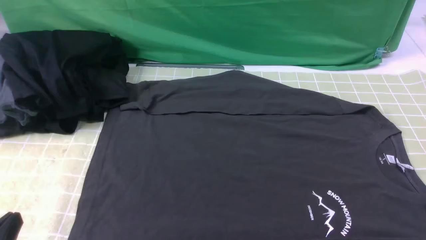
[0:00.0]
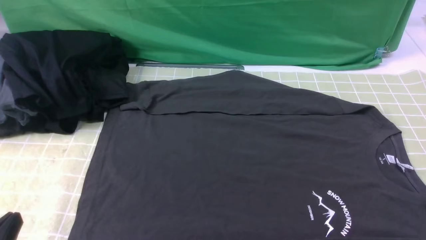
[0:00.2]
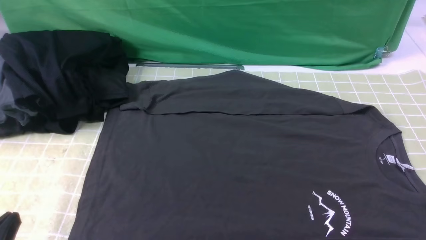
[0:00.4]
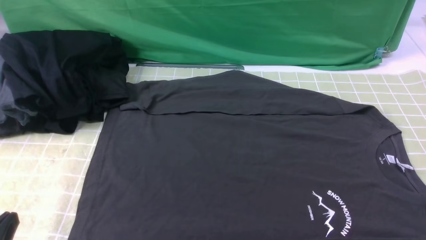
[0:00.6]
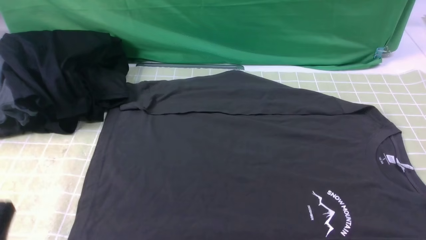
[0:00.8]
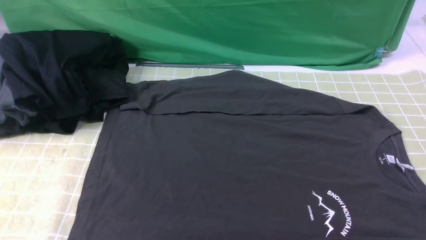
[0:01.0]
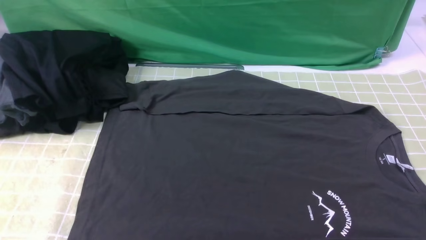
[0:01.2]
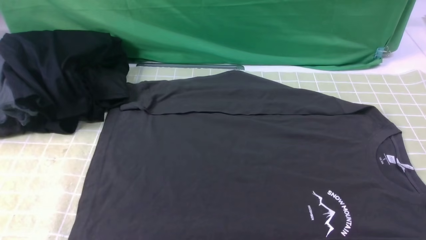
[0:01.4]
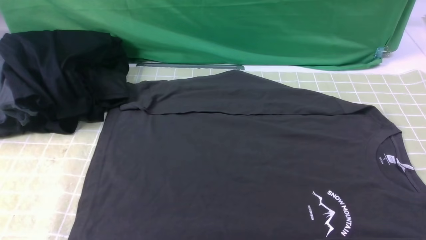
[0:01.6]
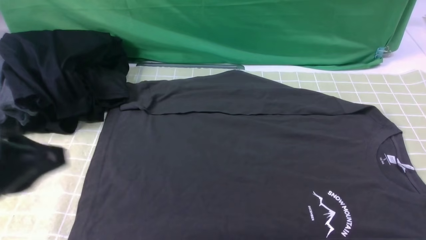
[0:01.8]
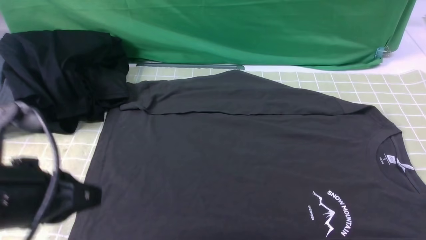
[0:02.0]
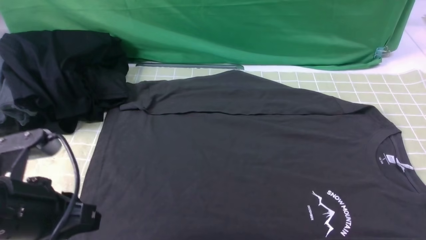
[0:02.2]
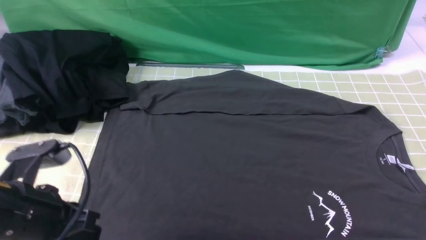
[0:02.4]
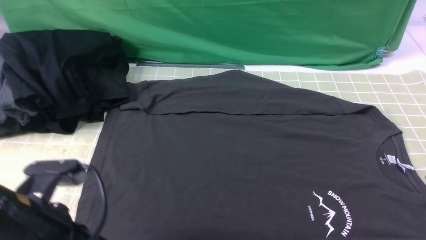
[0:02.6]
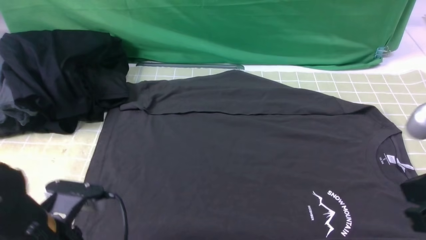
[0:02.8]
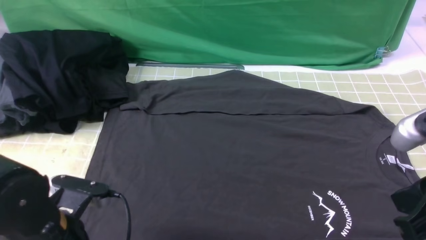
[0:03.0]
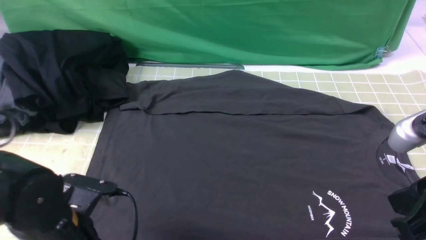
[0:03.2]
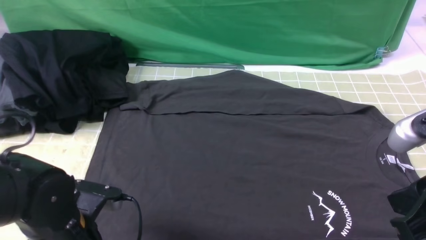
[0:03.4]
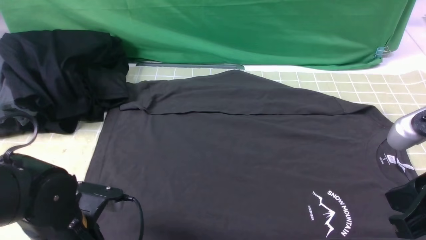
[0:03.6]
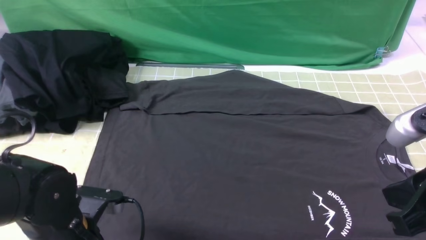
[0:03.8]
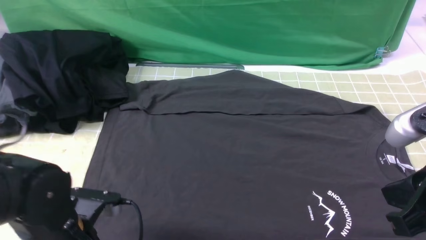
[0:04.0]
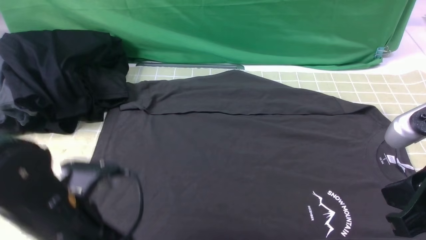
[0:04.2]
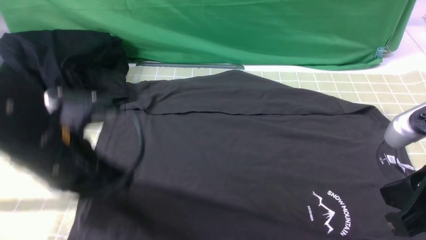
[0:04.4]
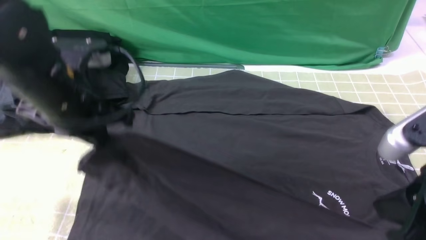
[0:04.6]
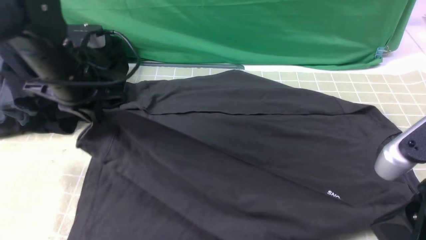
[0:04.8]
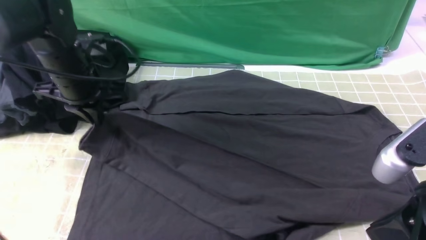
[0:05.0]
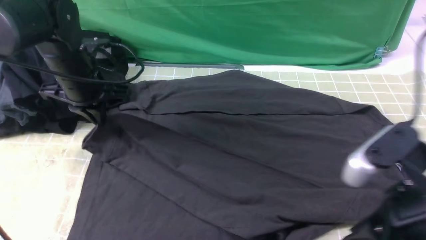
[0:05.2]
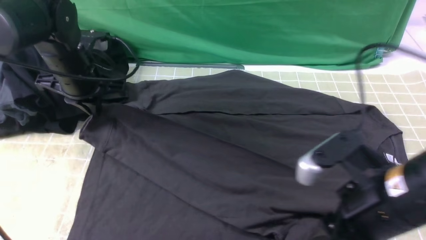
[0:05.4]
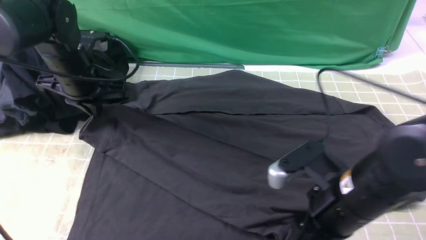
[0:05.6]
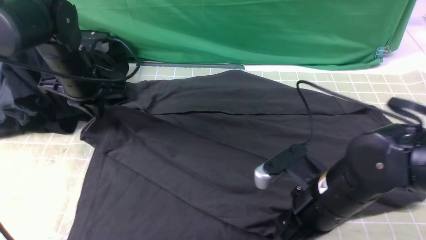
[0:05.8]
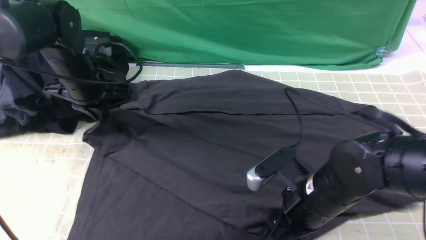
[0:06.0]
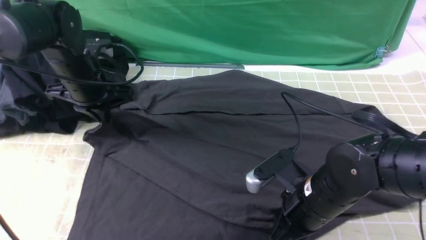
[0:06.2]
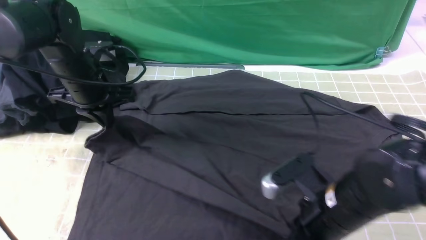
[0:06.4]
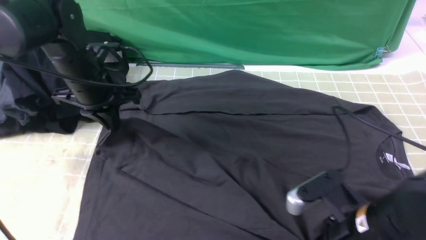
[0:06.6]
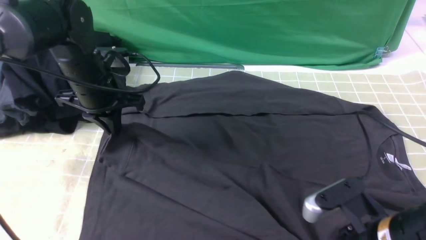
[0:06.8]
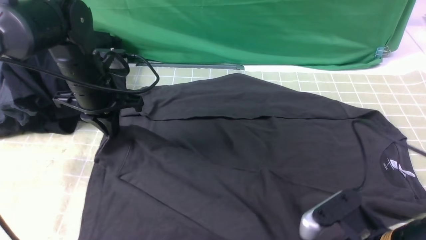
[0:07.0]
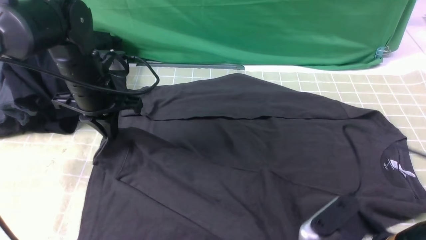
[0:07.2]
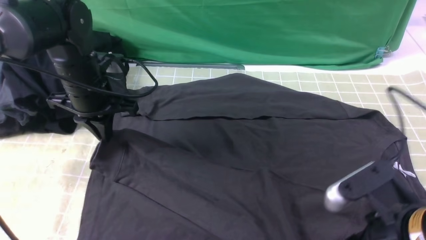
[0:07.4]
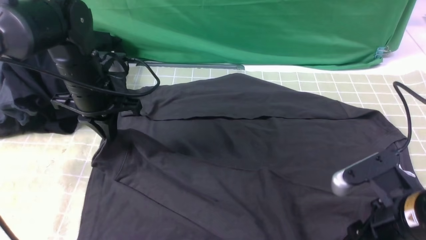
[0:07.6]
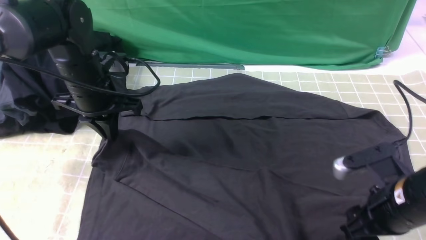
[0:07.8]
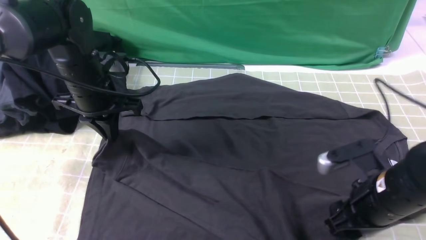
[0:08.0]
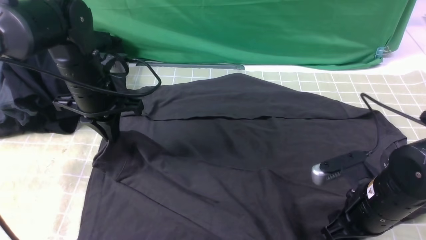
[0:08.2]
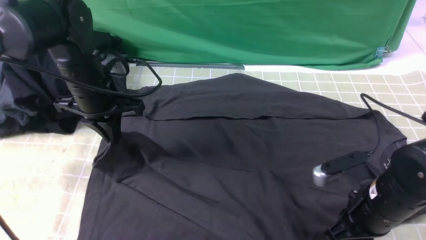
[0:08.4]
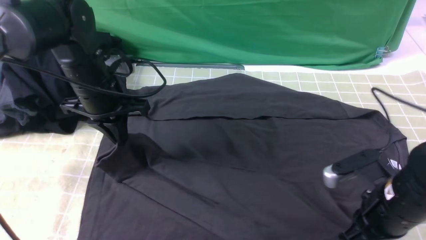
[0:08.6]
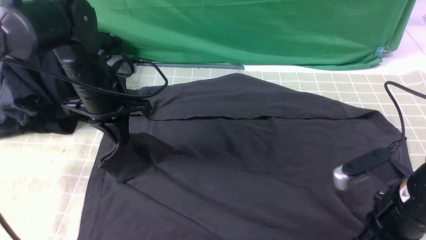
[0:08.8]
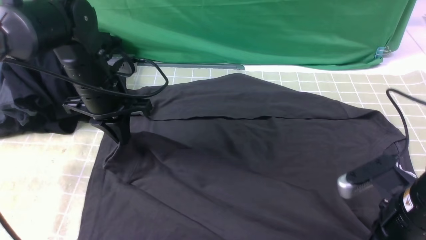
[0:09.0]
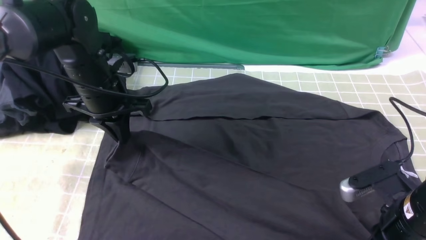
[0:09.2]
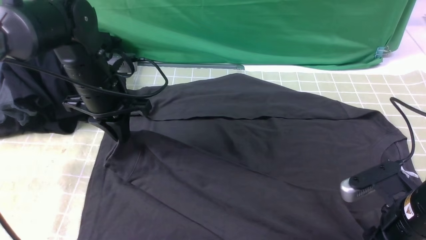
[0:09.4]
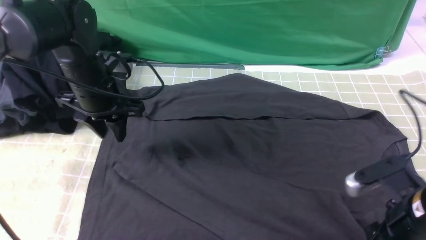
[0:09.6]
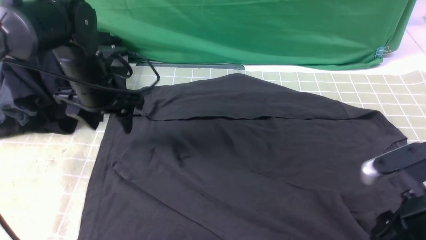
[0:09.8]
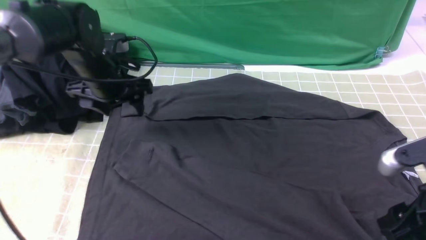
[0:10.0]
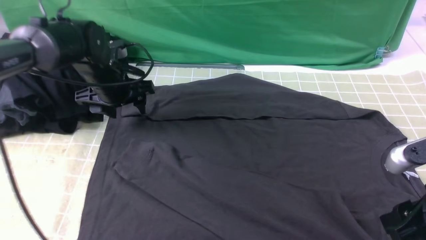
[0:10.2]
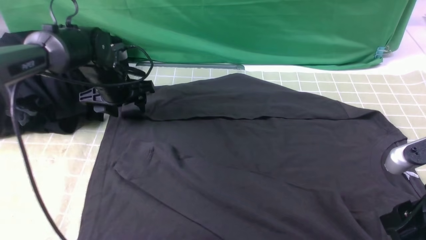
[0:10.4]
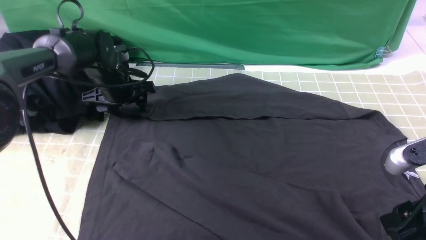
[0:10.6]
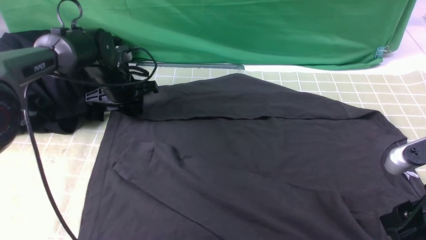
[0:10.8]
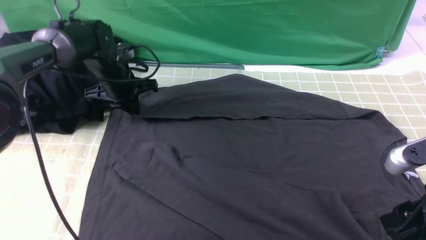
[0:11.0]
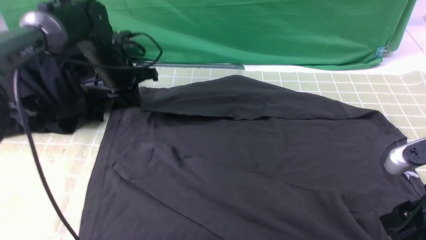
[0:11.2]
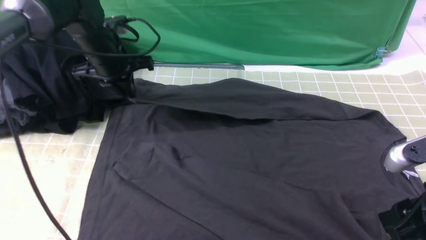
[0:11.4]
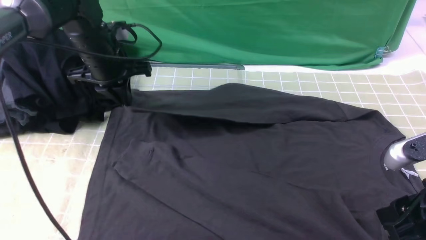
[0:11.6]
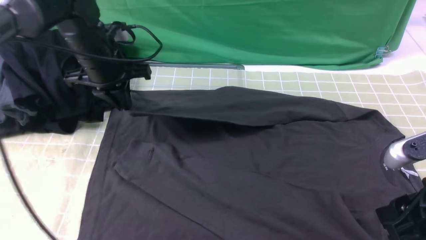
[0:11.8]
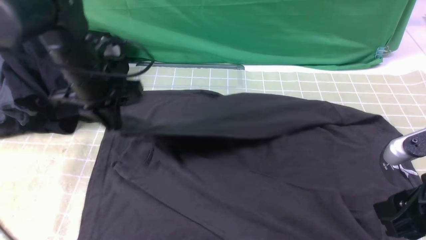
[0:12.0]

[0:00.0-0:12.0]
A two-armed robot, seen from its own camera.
Step, 0:00.0 to 0:04.0: use the left arm to clamp the cuff closest to it.
Step, 0:04.2 to 0:09.6: use the left arm to drag and place the cuff at the centered position on the left edge of the fabric.
Step, 0:09.8 to 0:10.8: use the left arm to clamp the cuff farthest from it.
0:01.6 to 0:03.0: The right gripper is displaced upward, to the left and forward by roughly 15 cm, and closes, while the left gripper travels downward and forward by roughly 20 cm.
0:03.0 to 0:04.4: The left gripper travels upward and forward by roughly 10 cm, and opens and closes again.
0:04.4 to 0:06.0: The right gripper moves downward, to the left and forward, about 20 cm, and opens its fingers. The left gripper travels forward by roughly 20 cm.
0:06.0 to 0:07.6: The right gripper travels to the right by about 10 cm, and closes and opens again.
0:07.6 to 0:09.0: The right gripper closes.
0:09.0 to 0:10.4: The left gripper is displaced forward and downward by about 10 cm, and opens its fingers; the right gripper is displaced upward by some 5 cm, and opens up.
0:10.4 to 0:12.0: The left gripper shifts roughly 10 cm backward and upward, and closes its fingers.

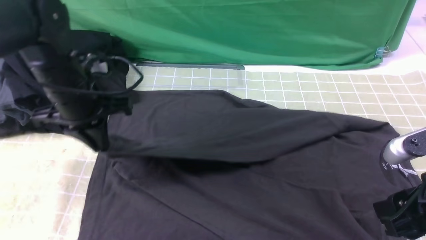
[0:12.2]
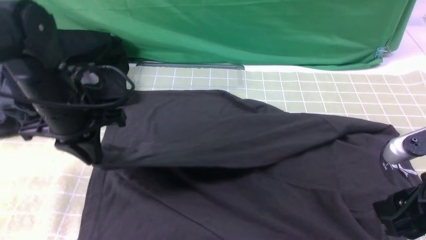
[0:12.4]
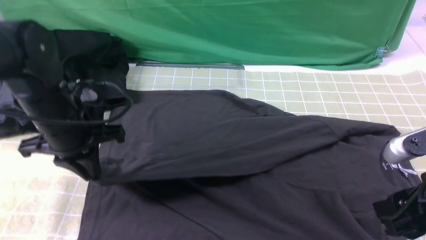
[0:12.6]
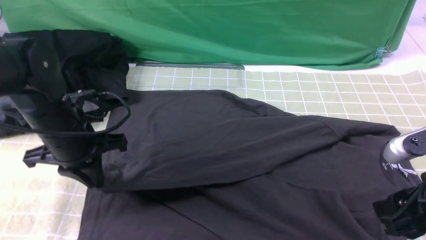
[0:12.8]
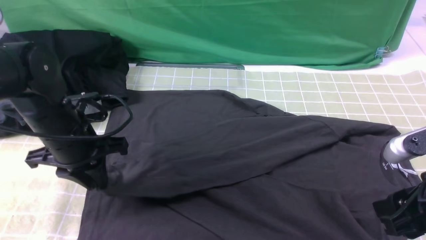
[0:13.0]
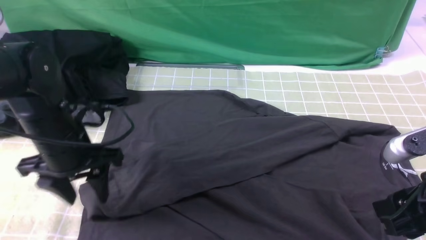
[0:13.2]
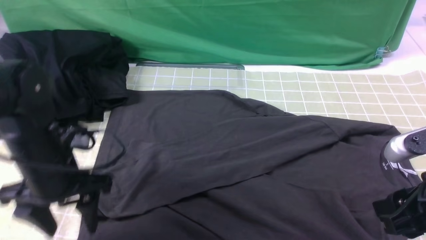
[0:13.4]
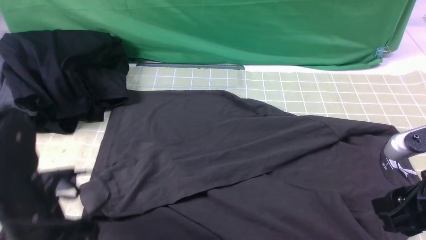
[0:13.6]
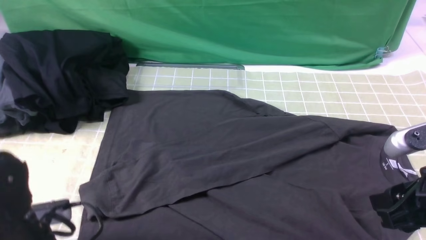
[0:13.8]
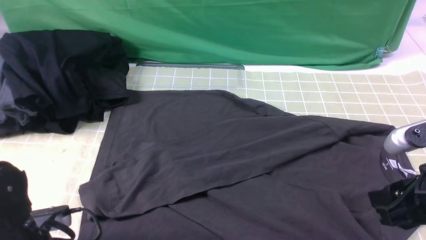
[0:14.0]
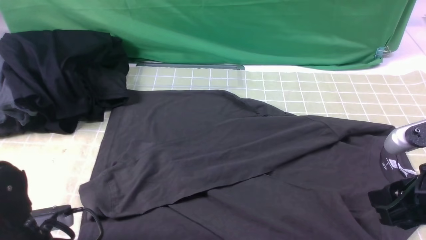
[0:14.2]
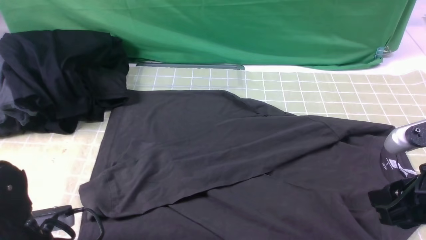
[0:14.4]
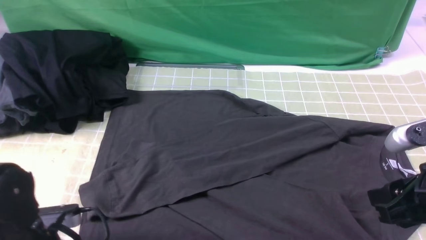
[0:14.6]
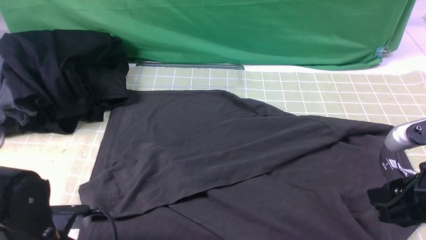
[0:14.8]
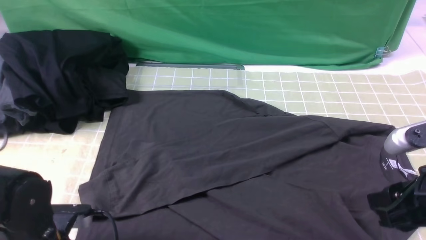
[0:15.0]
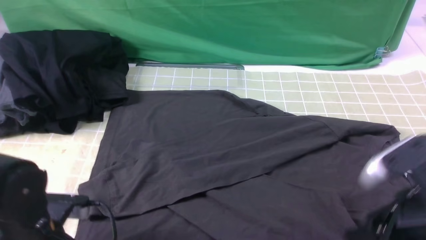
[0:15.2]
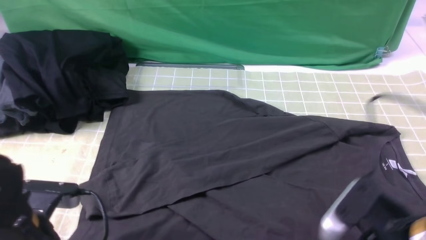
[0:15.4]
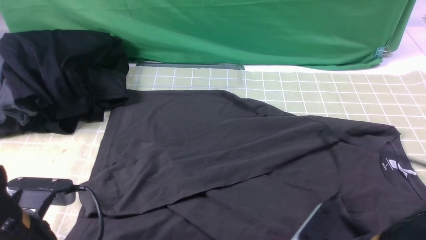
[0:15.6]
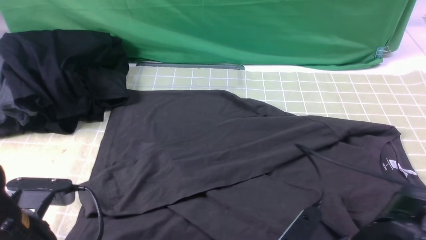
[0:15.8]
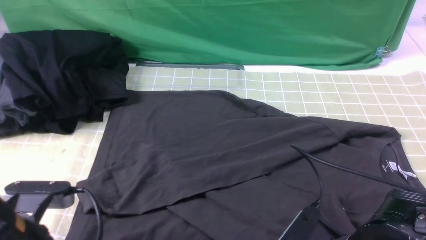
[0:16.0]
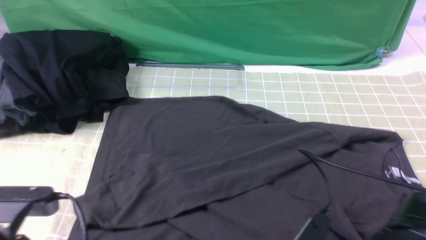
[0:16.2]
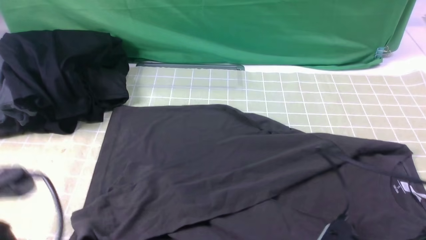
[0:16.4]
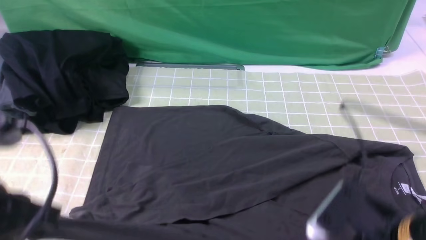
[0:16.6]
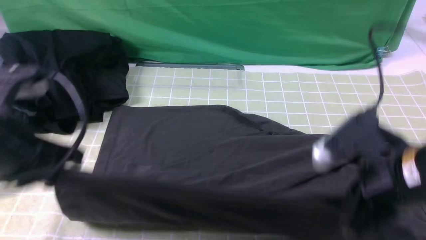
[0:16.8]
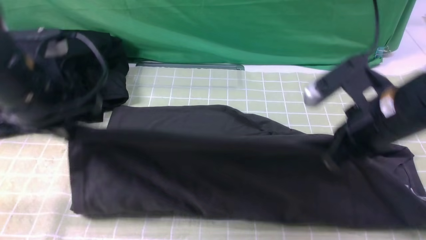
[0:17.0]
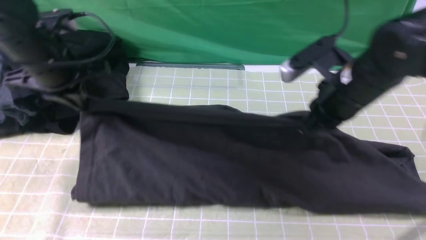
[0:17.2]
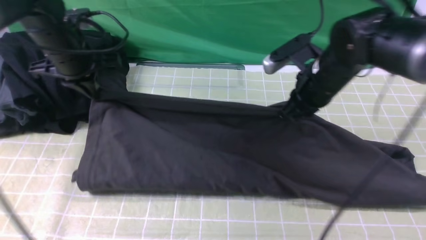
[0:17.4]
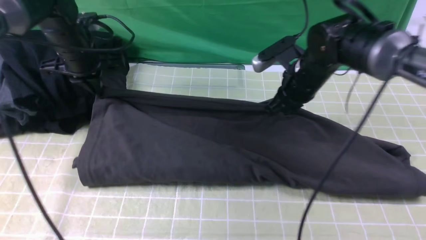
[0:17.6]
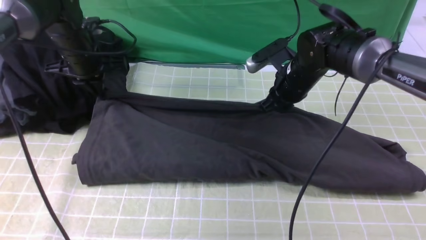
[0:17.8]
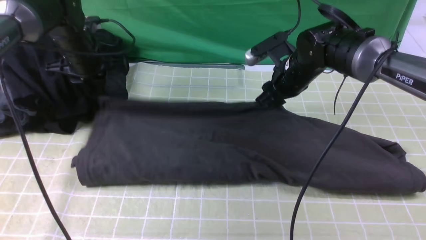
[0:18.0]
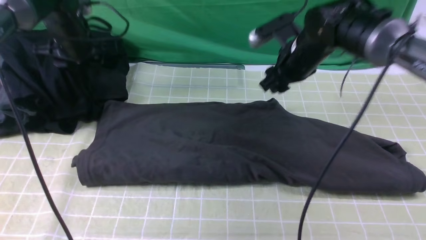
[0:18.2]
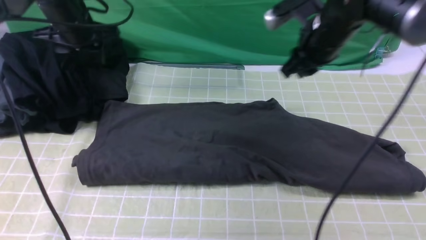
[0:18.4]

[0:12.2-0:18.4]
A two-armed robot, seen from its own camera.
Step, 0:13.4 to 0:16.0: use both arms simultaneously to clamp the lower edge of the clothing fabric.
Step, 0:16.2 to 0:18.0: use both arms to drag the lower edge of the fabric forward and fold it over the upper edge.
0:12.2 to 0:13.8: The left gripper is displaced backward and downward by some 20 cm, and opens.
0:13.8 to 0:15.4: The right gripper heads to the left, covering about 5 cm, while the left gripper closes its fingers.
0:15.4 to 0:16.8: The left gripper moves upward, some 15 cm, while the right gripper goes some 10 cm forward and upward, and closes its fingers.
0:16.8 to 0:18.4: The two grippers go approximately 25 cm forward. The left gripper opens.
